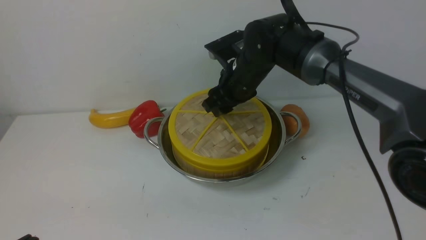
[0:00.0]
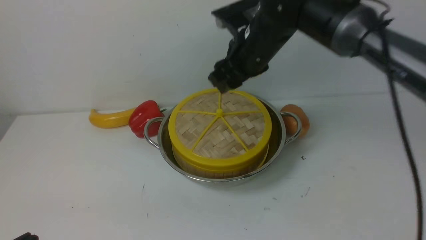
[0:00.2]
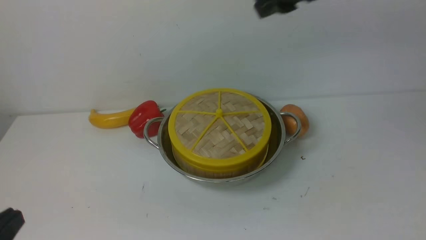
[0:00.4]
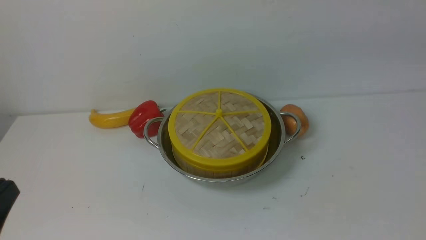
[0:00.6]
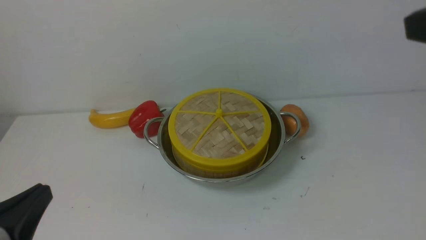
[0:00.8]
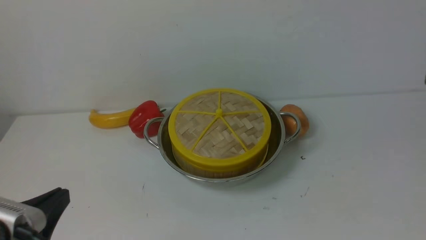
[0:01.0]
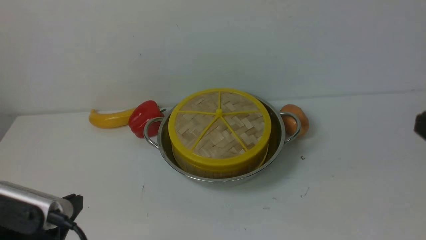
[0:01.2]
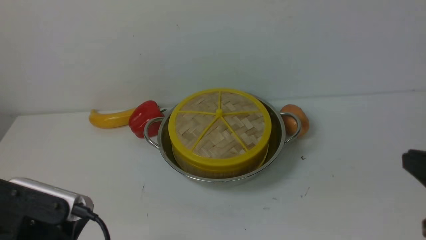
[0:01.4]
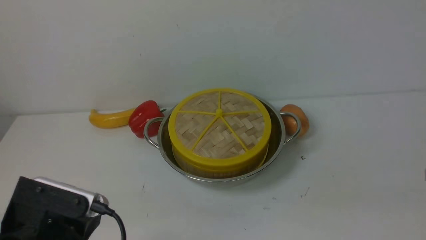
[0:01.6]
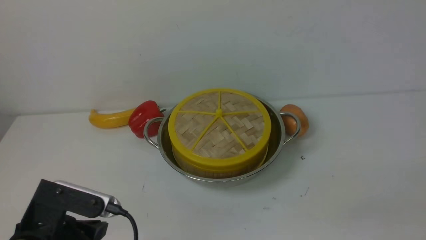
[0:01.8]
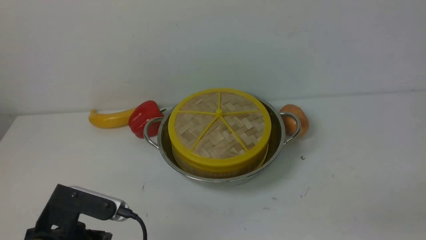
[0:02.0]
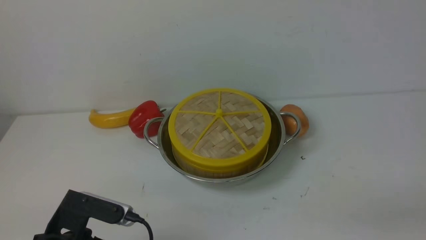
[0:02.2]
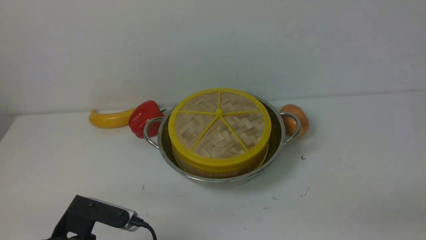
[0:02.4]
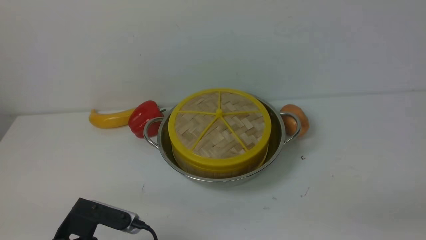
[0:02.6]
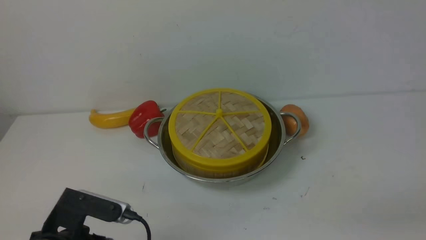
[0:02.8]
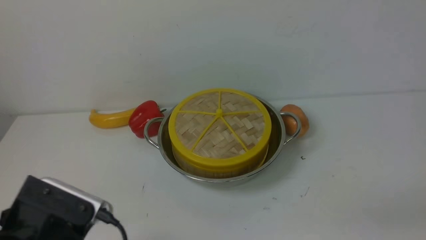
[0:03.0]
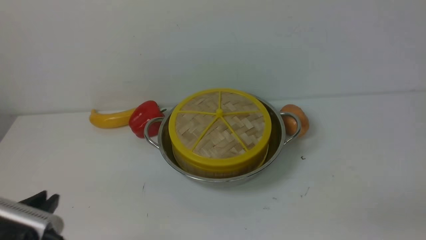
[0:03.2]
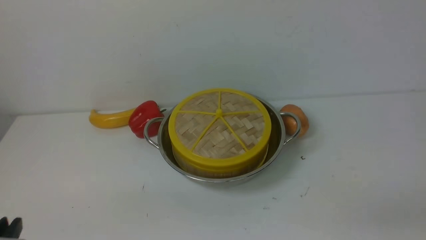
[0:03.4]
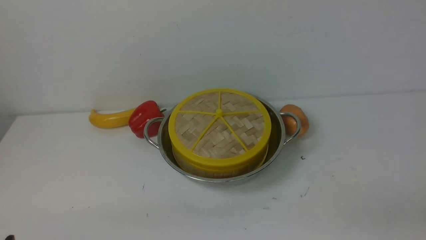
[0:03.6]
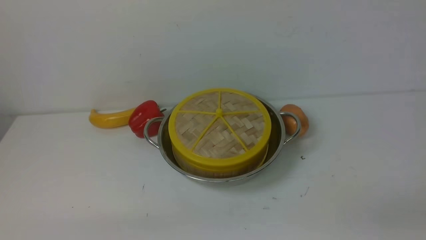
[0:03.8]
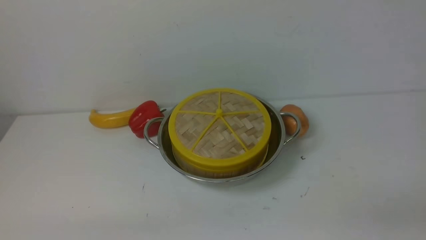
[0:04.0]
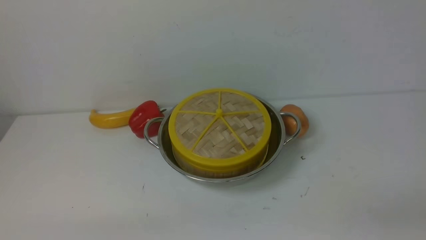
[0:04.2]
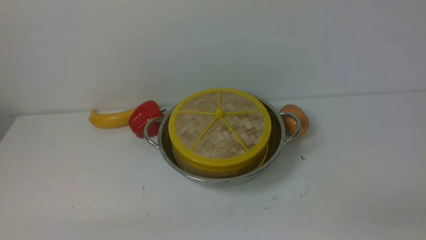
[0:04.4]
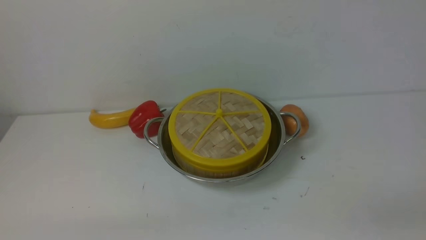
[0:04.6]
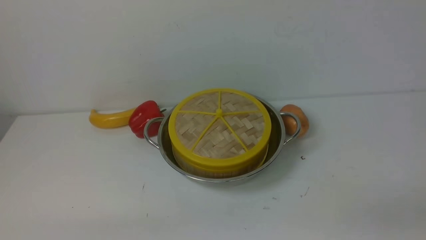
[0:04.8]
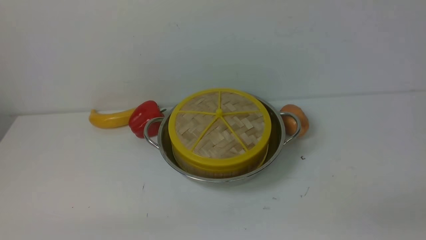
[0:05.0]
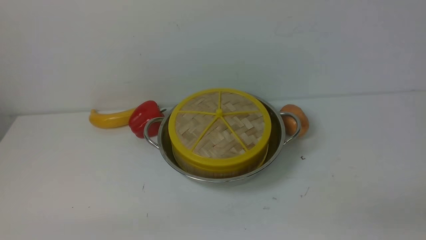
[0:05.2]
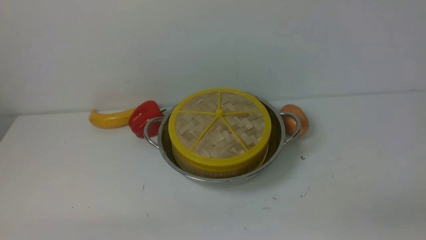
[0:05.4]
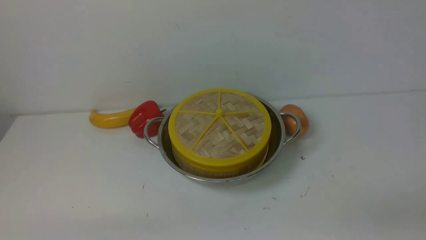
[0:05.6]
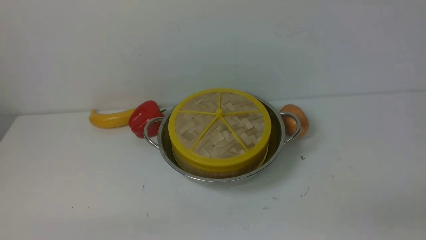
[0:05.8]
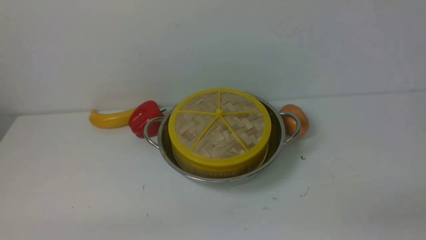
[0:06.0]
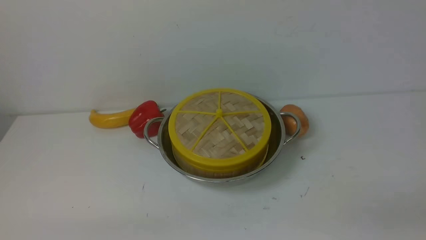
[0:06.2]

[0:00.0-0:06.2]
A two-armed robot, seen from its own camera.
Task of the whole recording: place the steamer in the pot on the white table, and put the lid on the steamer.
0:00.0 to 0:01.6: The right gripper shifts roughly 40 cm backward and to the right, and closes up; the left gripper shifts some 10 cm forward and downward.
0:03.2 to 0:04.6: The left gripper is displaced backward by about 5 cm.
0:04.6 to 0:06.2: Both grippers stay about where they are.

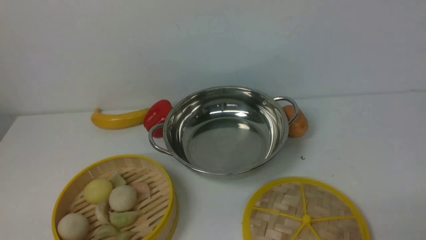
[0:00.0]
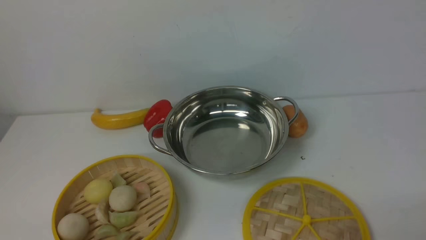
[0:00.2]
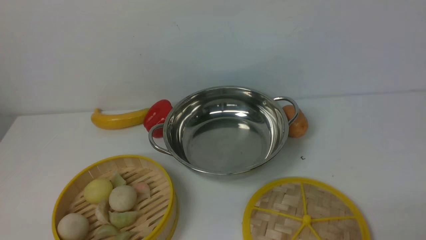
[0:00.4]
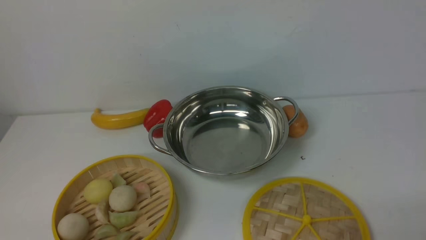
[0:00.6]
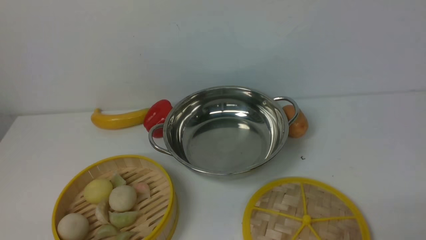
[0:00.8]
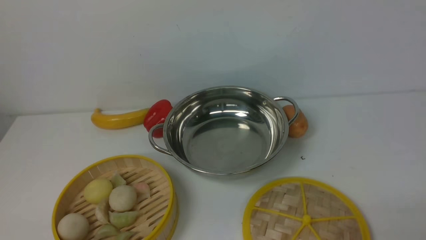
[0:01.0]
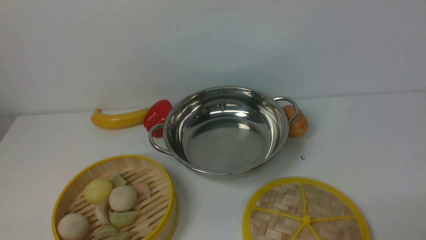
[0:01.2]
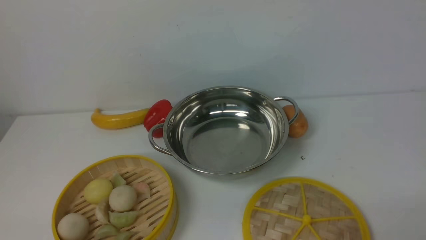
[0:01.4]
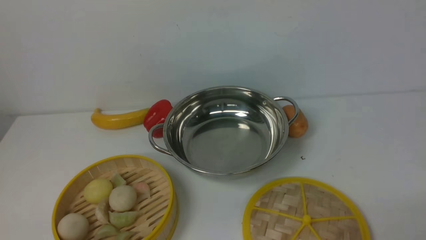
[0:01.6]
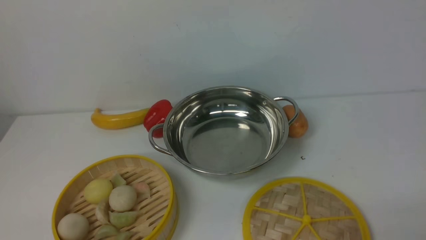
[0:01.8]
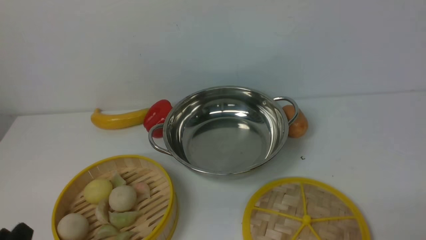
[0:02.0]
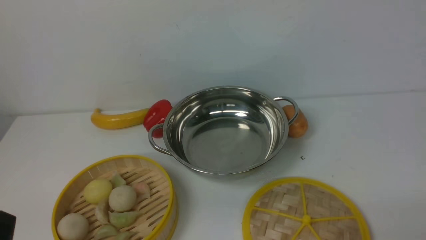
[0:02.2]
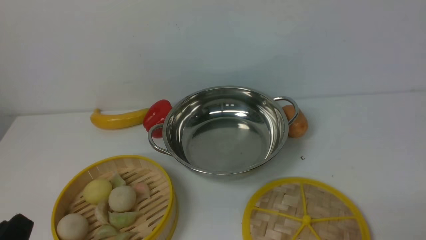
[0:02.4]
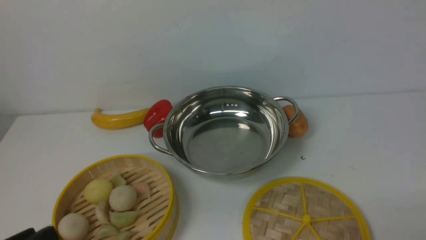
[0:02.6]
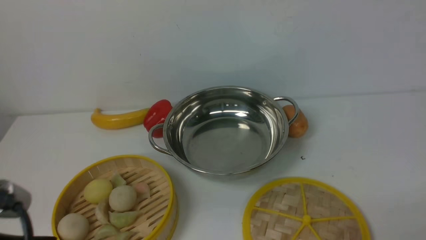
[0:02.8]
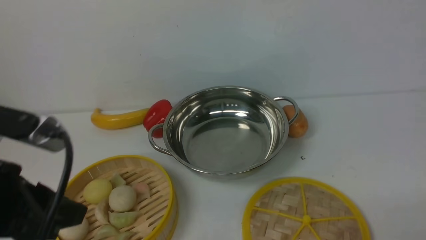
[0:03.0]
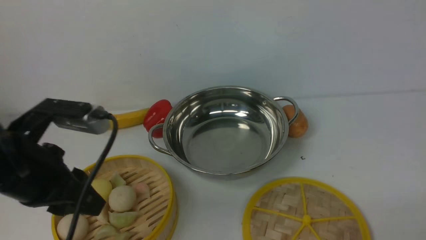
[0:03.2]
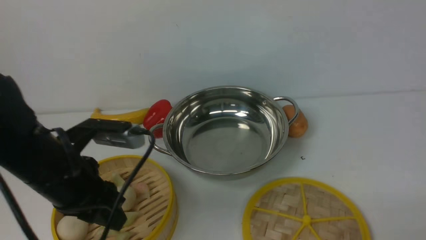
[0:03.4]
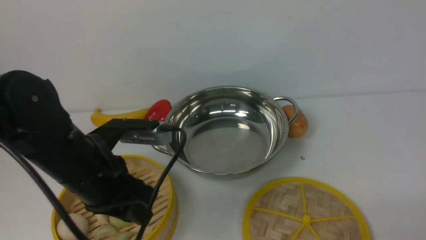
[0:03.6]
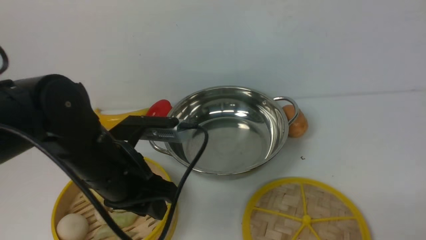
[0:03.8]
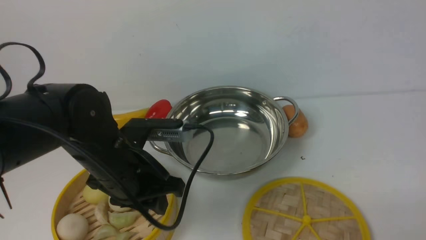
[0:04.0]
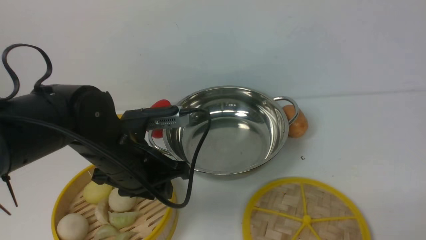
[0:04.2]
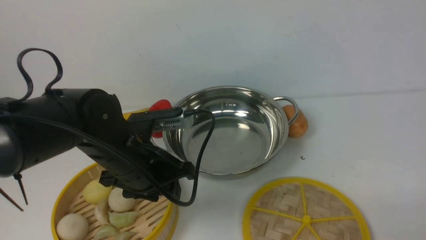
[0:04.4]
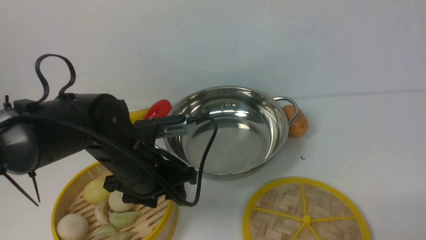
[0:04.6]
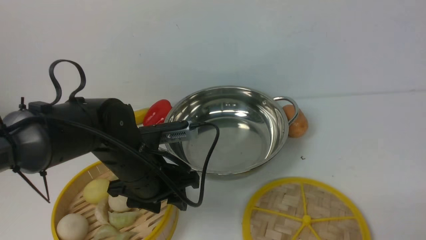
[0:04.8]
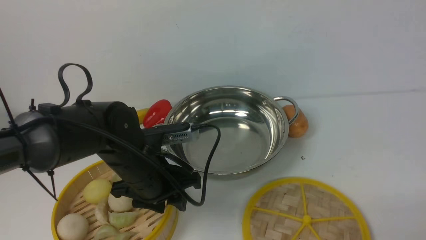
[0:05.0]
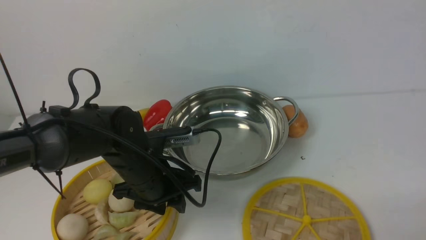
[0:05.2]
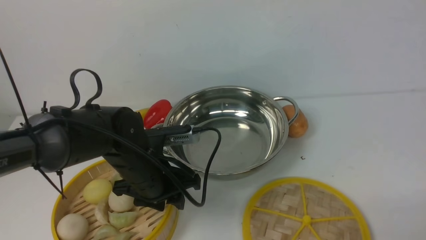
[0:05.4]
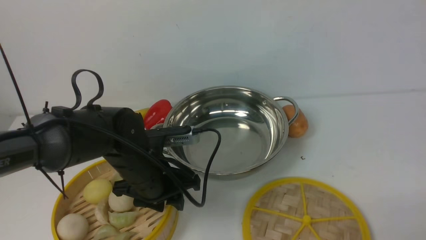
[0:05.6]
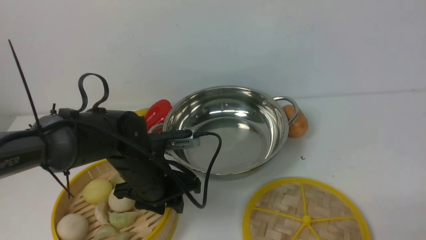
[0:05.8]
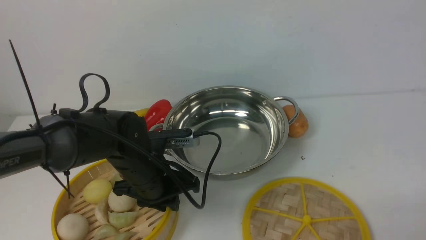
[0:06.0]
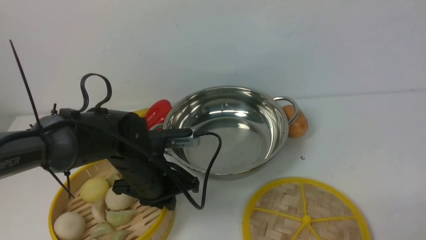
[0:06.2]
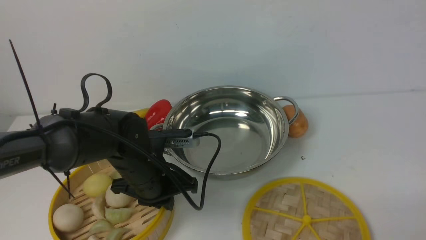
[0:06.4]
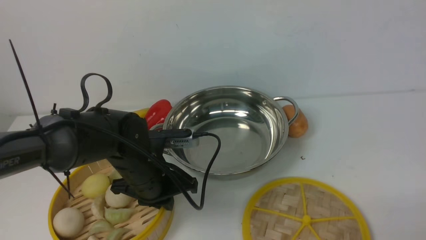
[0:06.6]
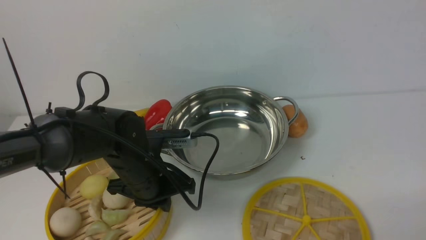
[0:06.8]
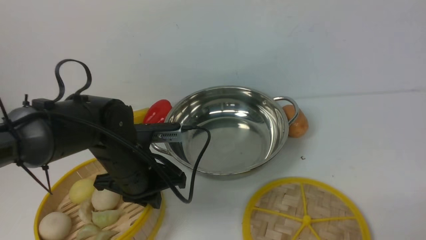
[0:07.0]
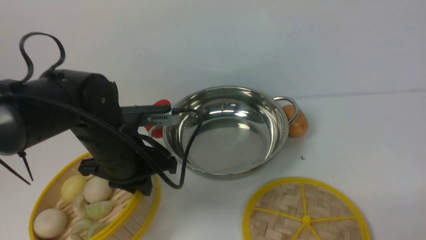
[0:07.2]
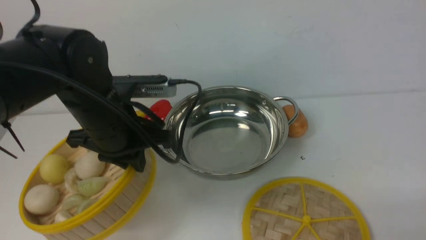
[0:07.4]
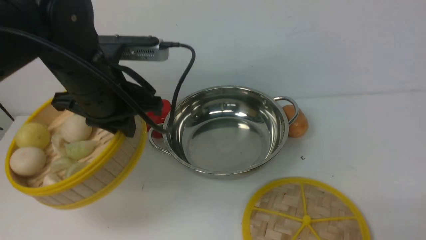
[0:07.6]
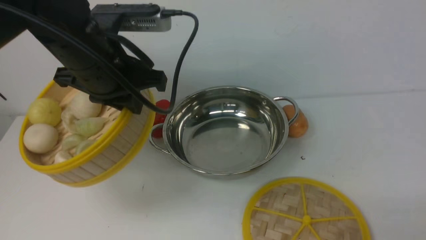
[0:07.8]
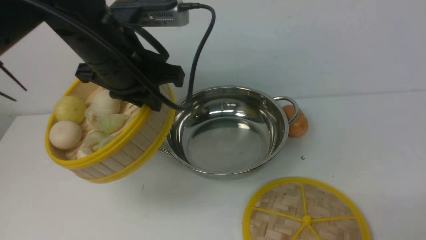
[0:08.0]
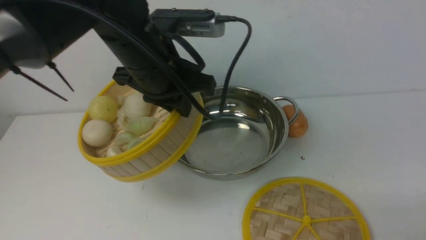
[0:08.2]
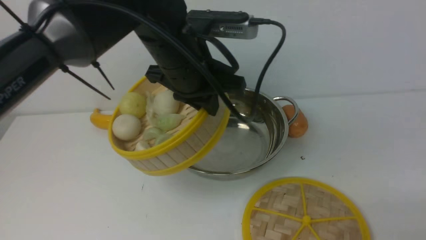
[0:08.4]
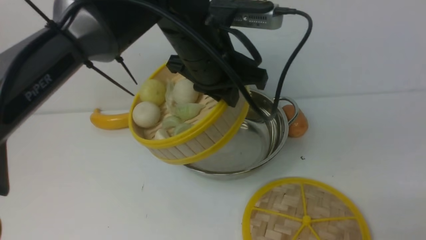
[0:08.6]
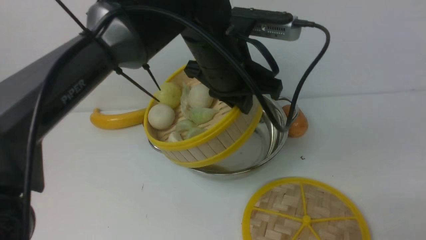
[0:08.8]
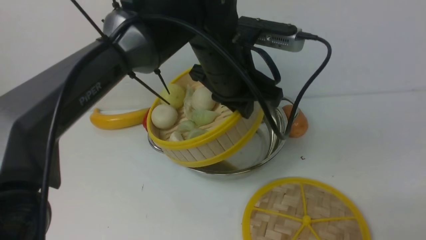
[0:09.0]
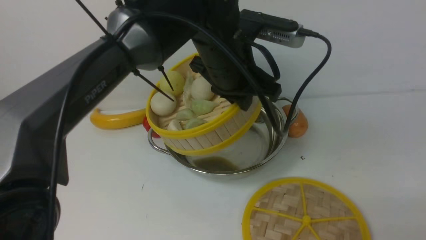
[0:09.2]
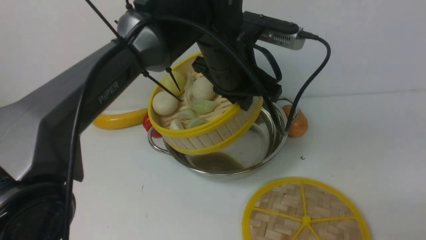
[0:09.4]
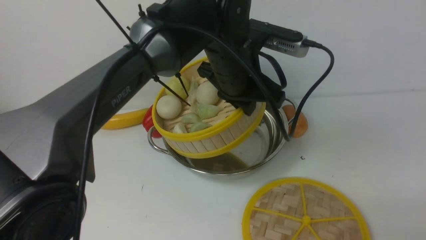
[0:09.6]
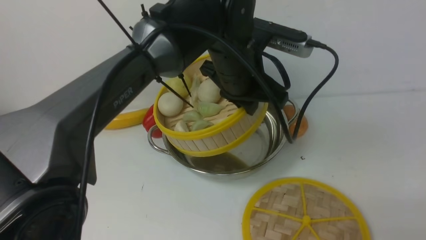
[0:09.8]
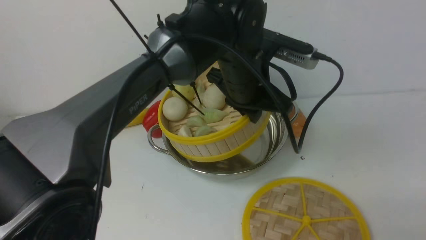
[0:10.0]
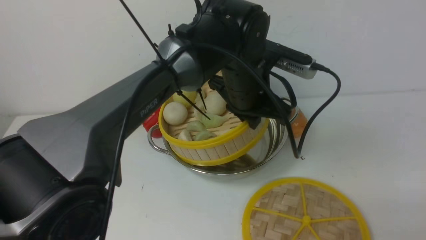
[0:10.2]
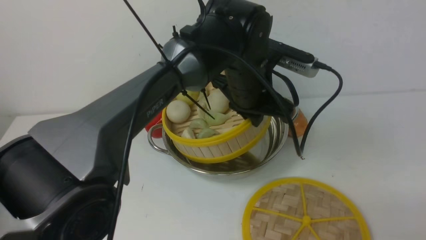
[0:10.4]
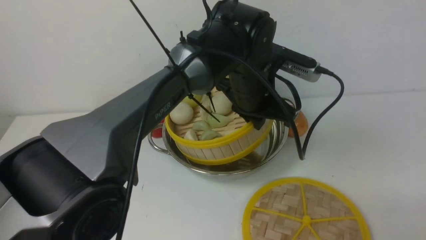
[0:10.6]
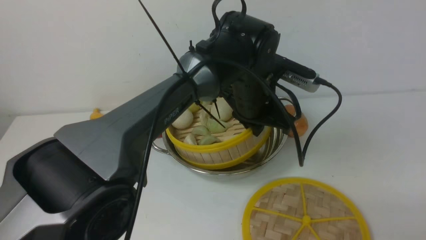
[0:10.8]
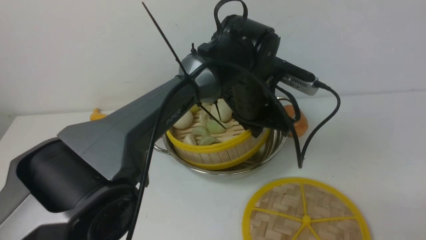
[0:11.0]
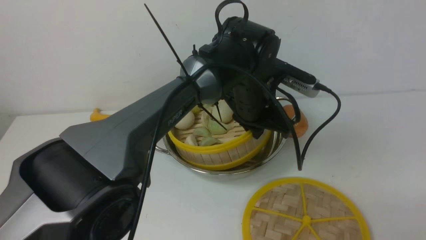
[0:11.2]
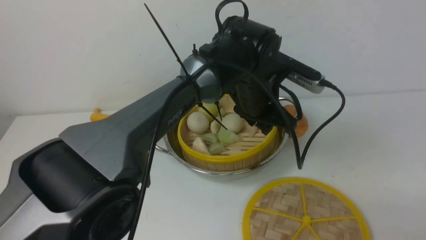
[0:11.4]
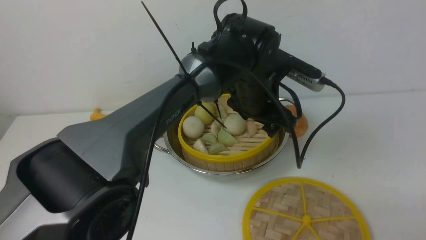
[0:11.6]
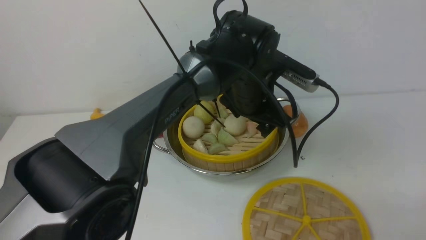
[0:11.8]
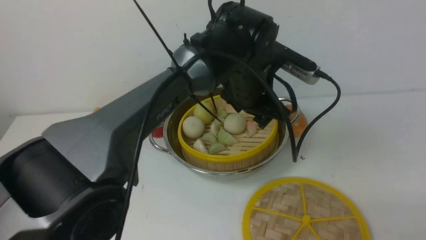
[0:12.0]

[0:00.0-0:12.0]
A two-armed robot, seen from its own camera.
Task of the whole recording: place the steamer in the pot on the white table, and put the lid on the steamer.
Step, 0:00.0 to 0:07.2: use the left arm to lift the steamer closest to it.
0:00.0 to 0:01.6: Both grippers stay put.
0:01.6 to 0:03.0: The left gripper is displaced upward and forward by about 20 cm.
0:03.0 to 0:04.4: The left gripper goes some 20 cm forward, downward and to the right.
0:04.4 to 0:06.0: The left gripper moves downward, about 5 cm, and closes its fingers.
0:06.0 to 0:07.6: The left gripper travels upward by approximately 15 cm.
0:07.6 to 0:09.0: The left gripper travels to the right by some 15 cm.
0:09.0 to 0:10.4: The left gripper travels downward by approximately 5 cm.
0:10.4 to 0:12.0: The left gripper opens.
